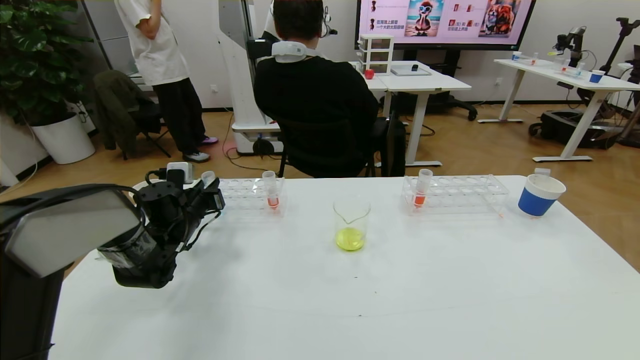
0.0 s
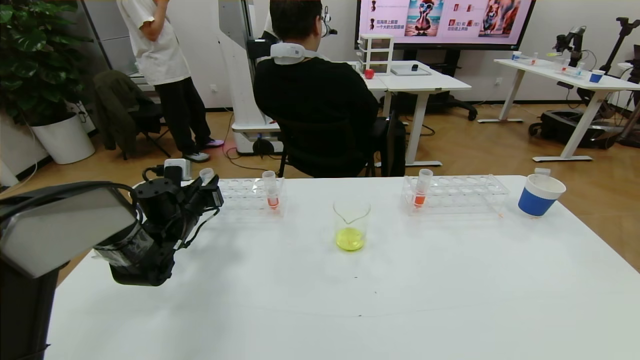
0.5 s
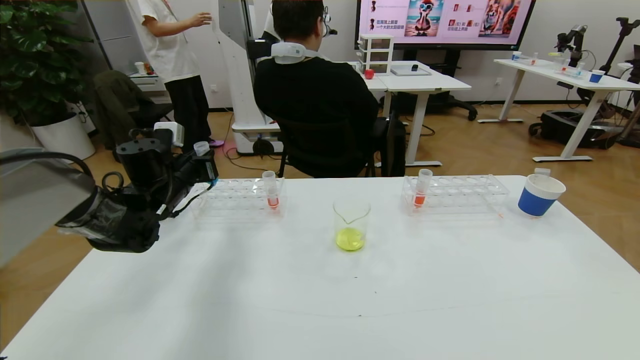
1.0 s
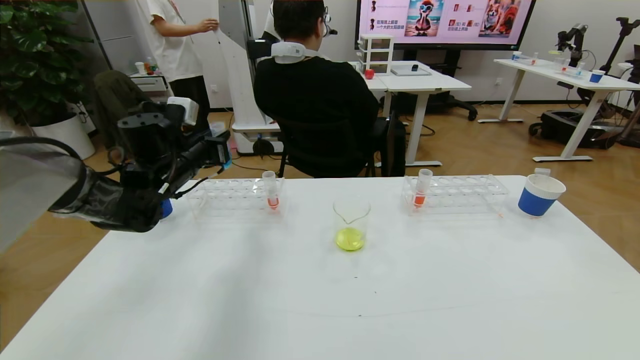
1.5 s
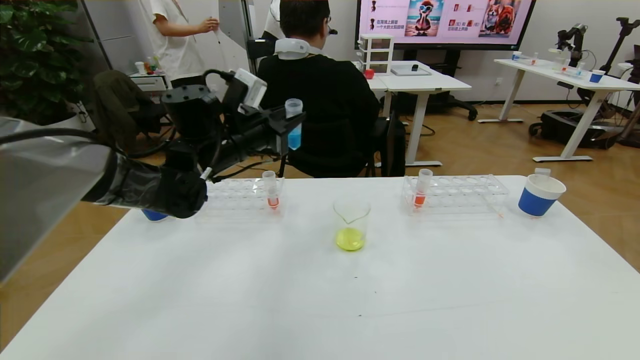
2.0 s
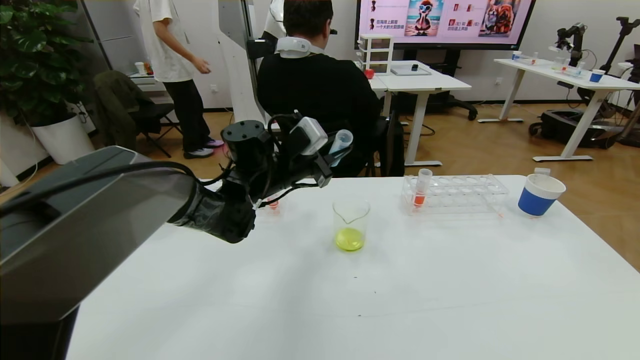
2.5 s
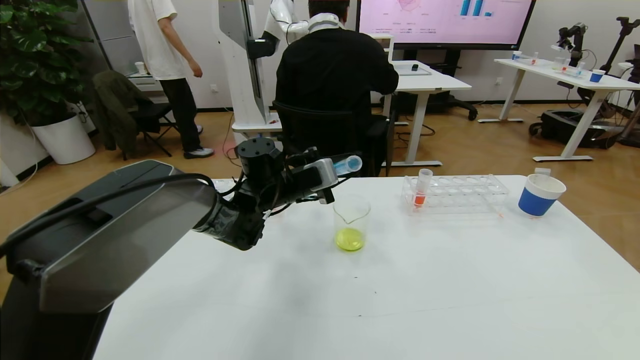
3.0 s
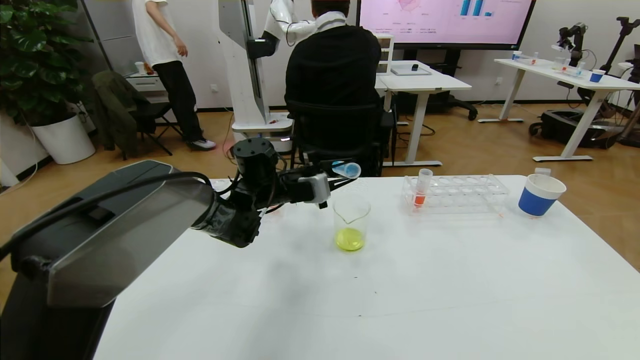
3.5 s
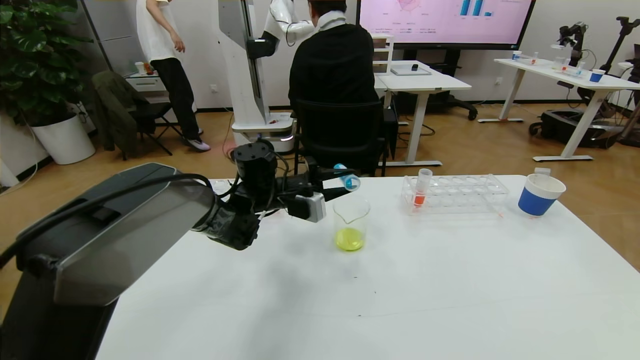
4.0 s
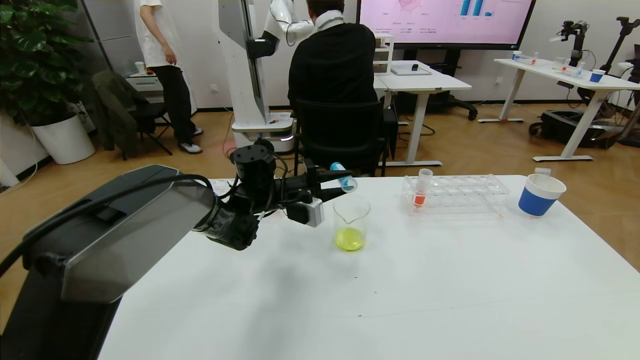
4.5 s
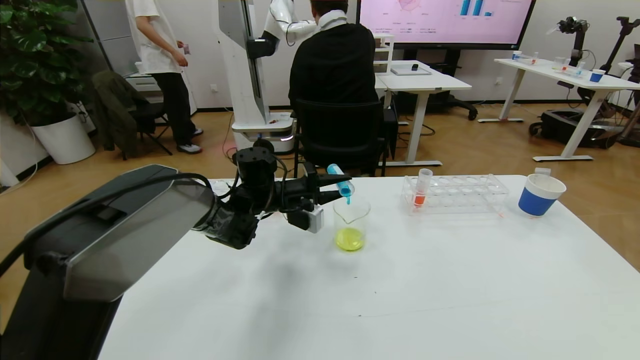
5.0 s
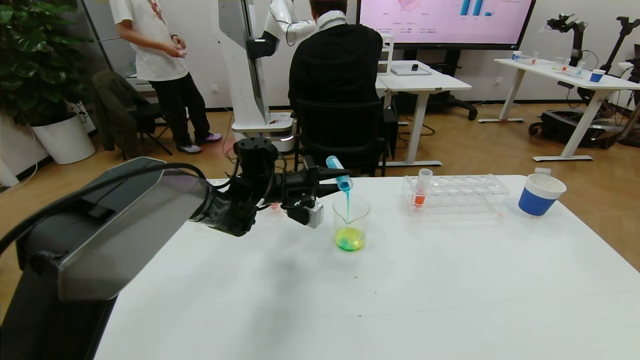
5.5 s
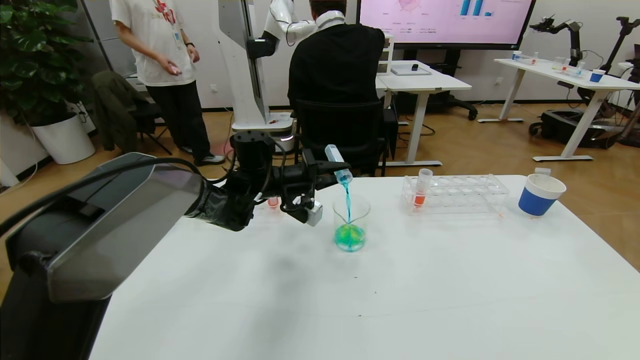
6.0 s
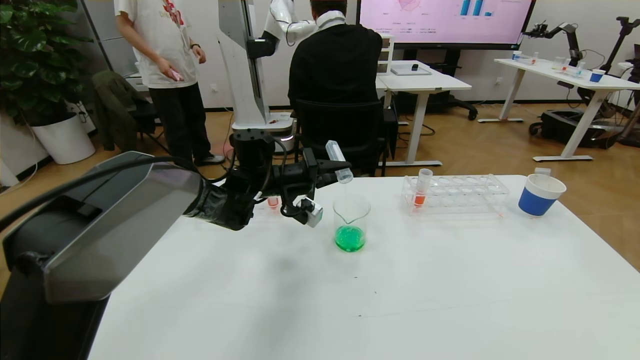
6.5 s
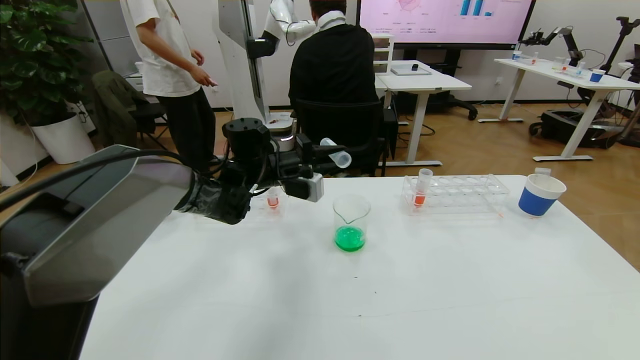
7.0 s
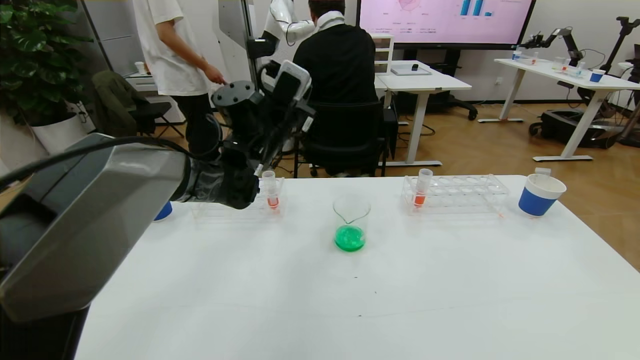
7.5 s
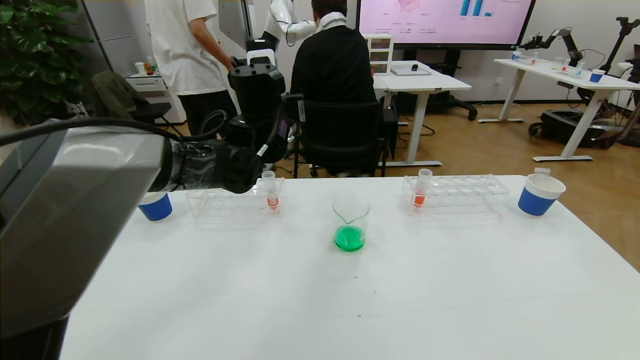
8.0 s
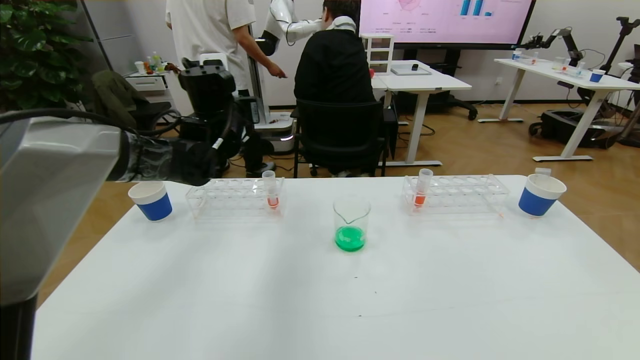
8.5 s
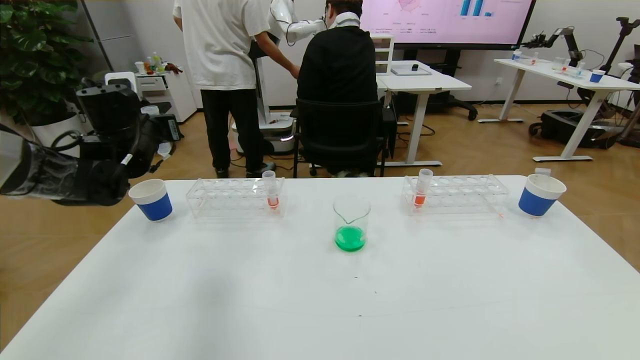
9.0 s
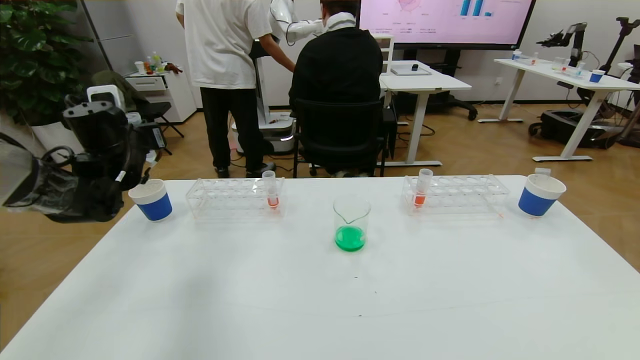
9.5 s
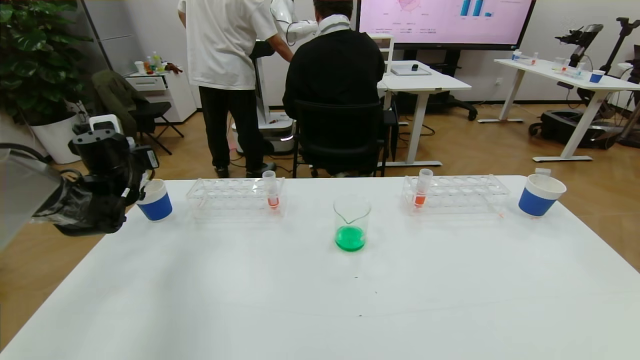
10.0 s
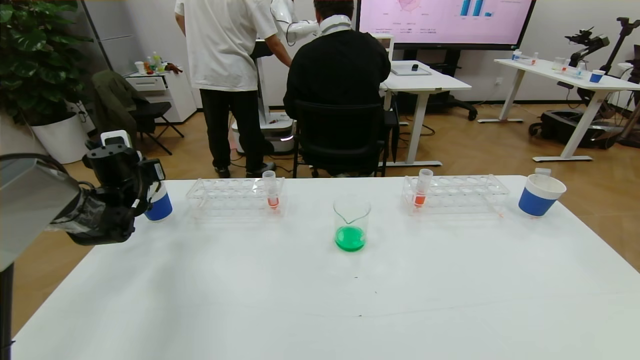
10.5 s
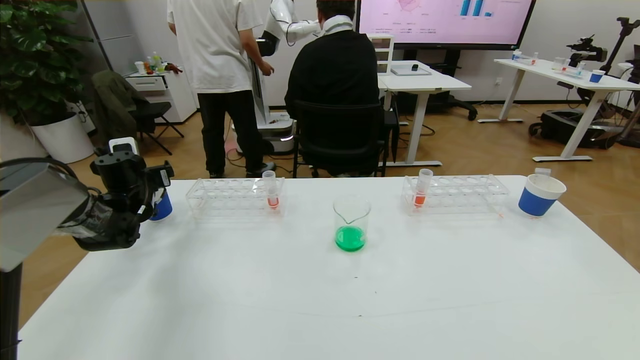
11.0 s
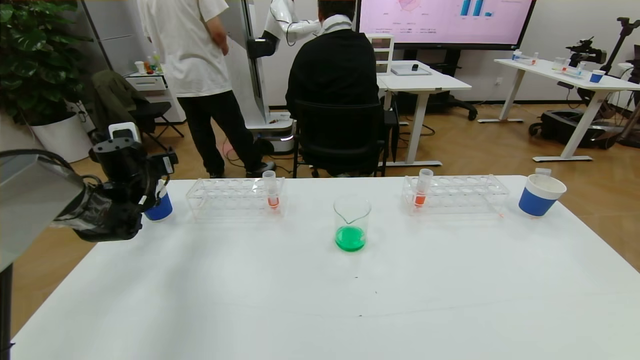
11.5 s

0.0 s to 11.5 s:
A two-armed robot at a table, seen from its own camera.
Task of the whole recording: pick up the test tube with yellow pigment and the test tube with blue pigment by grippers and pour them into the beaker.
0.0 to 2.0 s: The left gripper travels upward and to the right by about 20 cm.
2.0 to 4.0 s: The left gripper heads downward and to the right, covering some 10 cm.
6.0 to 7.5 s: The left gripper is displaced upward by approximately 10 cm.
7.5 to 9.5 s: The left gripper moves to the left, some 25 cm.
9.5 to 11.5 s: The left gripper heads downward, covering roughly 5 cm, and opens.

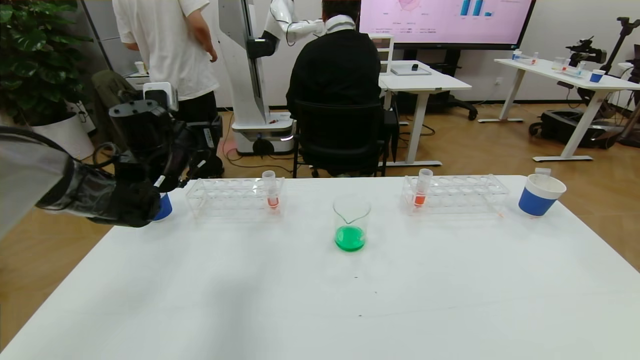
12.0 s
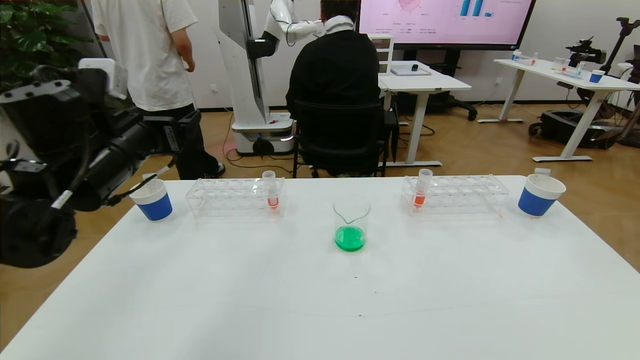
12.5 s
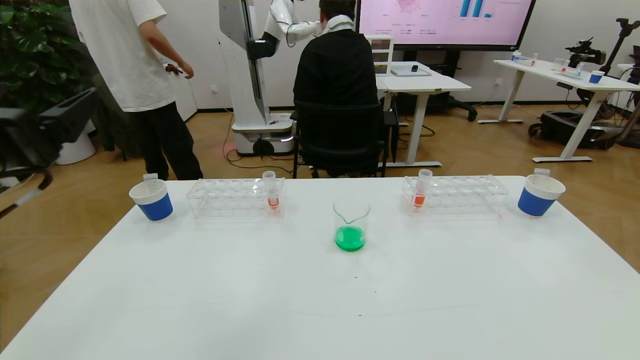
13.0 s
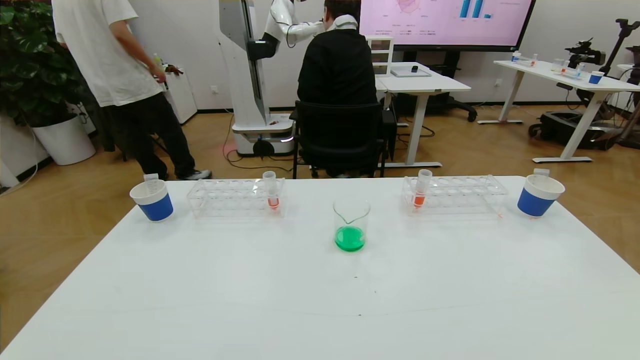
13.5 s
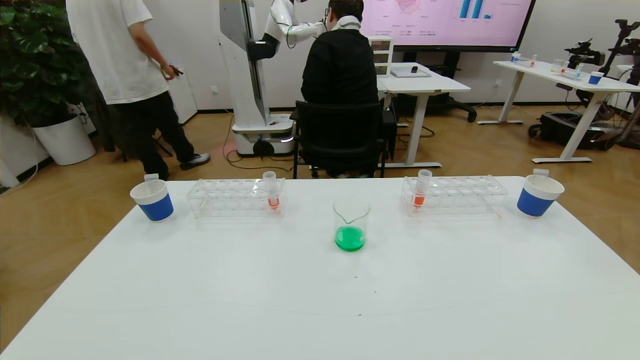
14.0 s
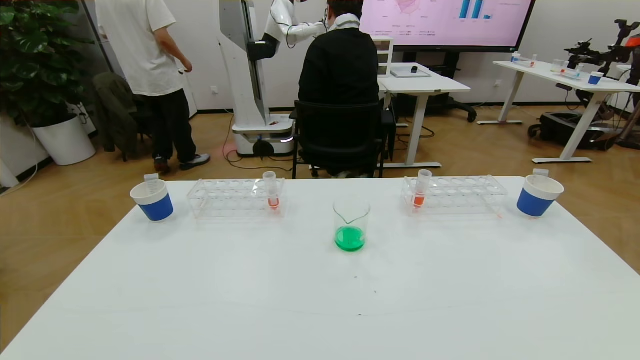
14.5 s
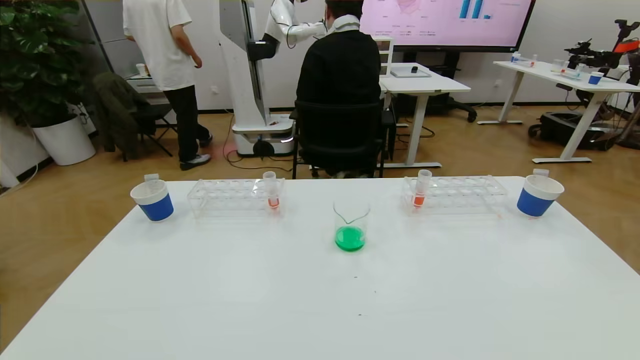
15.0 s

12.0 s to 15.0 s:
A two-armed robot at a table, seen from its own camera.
Task of the whole recording: pick up the test tube with yellow pigment and the test tube with blue pigment by grippers and pour them into the beaker.
Step, 12.0 to 15.0 s: Pour the blue reagent into the graduated cylinder and place the test tube into the paper cup.
12.0 to 13.5 s: The left gripper heads backward, covering about 35 cm.
13.5 to 15.0 s: The left gripper is displaced downward by roughly 20 cm.
